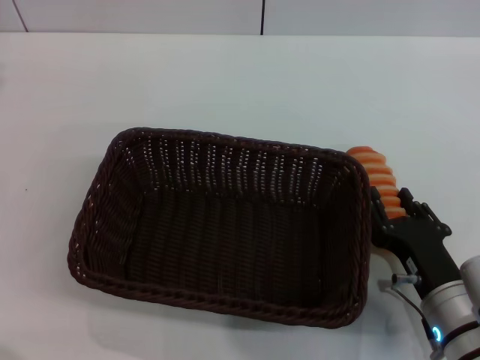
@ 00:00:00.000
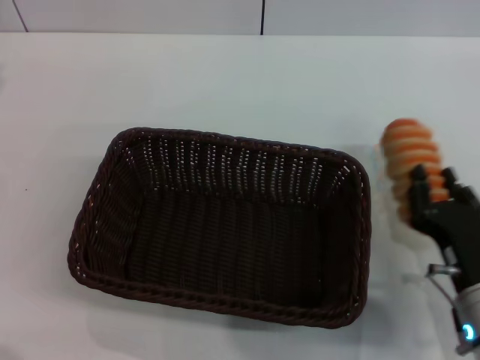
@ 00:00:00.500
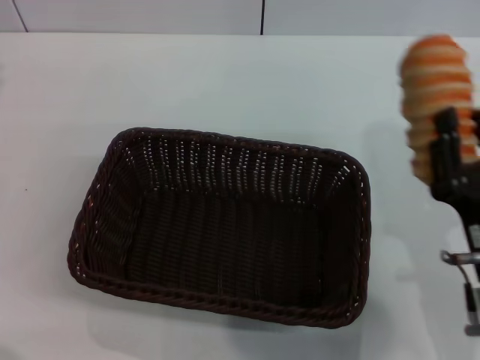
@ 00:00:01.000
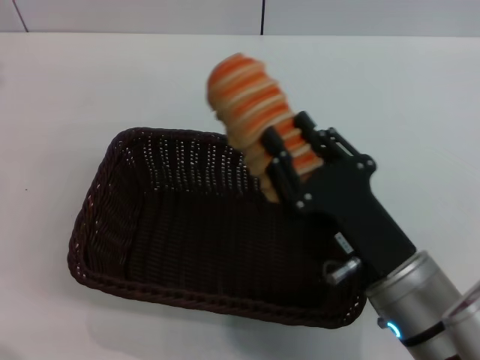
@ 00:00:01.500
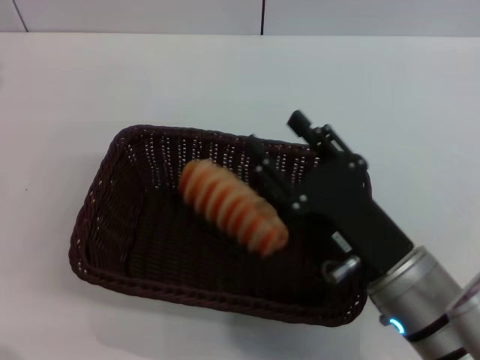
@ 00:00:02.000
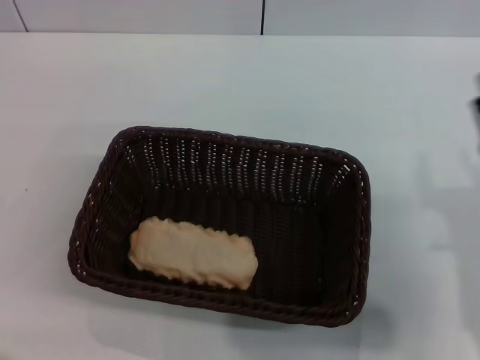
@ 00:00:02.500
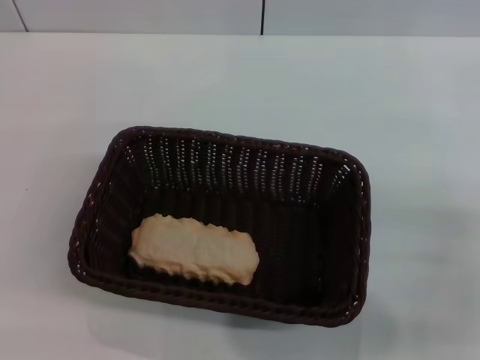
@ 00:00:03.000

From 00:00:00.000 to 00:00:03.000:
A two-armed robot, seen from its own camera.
Step, from 00:00:00.500 to 00:00:02.000: Place the long bread in the basket with right gripper.
From 00:00:00.000 to 00:00:01.500: The right gripper goes about 10 cm upward and to the left, and closes up.
From 00:00:01.500 to 00:00:03.000: The left gripper is displaced downward by approximately 10 cm. Meanwhile the right gripper is displaced to the right by roughly 15 cm, and opens.

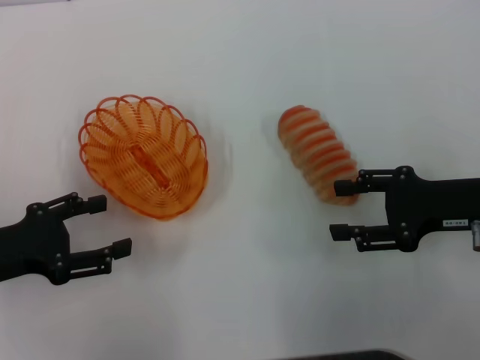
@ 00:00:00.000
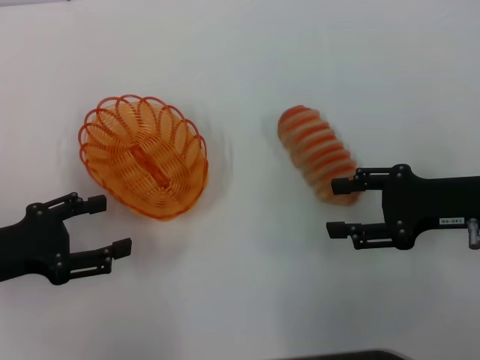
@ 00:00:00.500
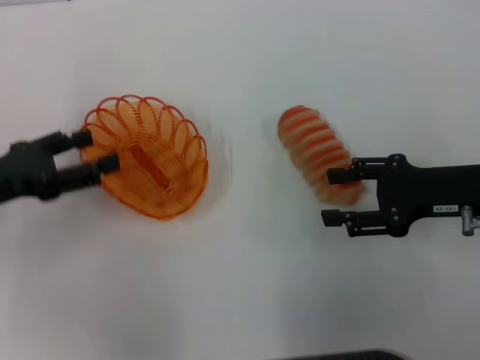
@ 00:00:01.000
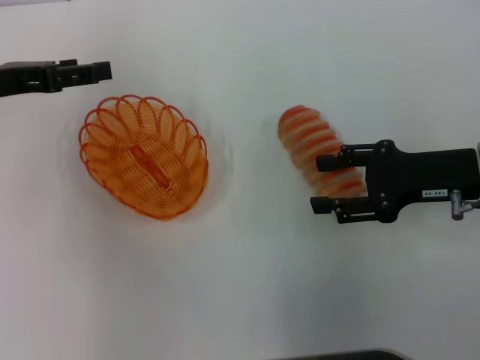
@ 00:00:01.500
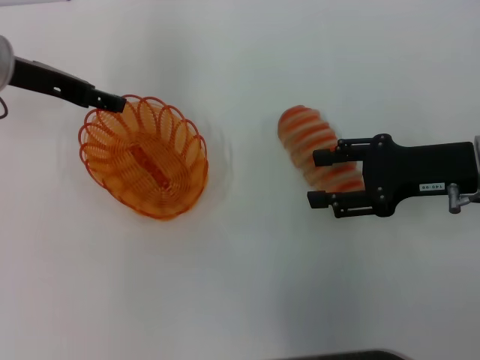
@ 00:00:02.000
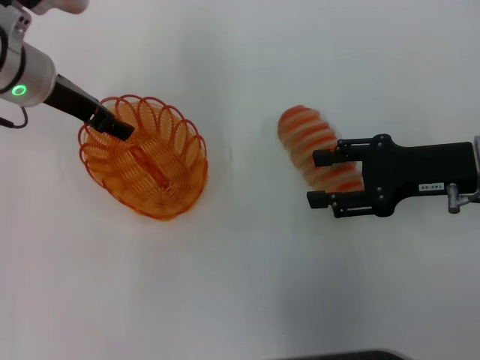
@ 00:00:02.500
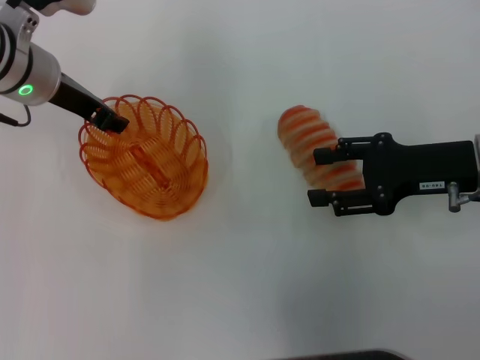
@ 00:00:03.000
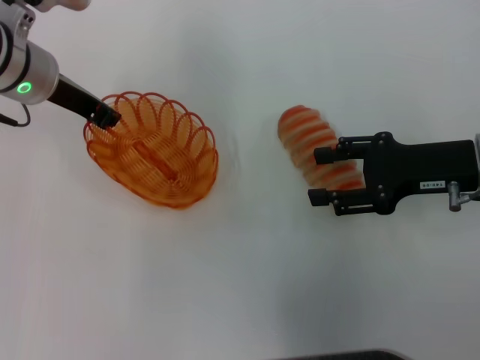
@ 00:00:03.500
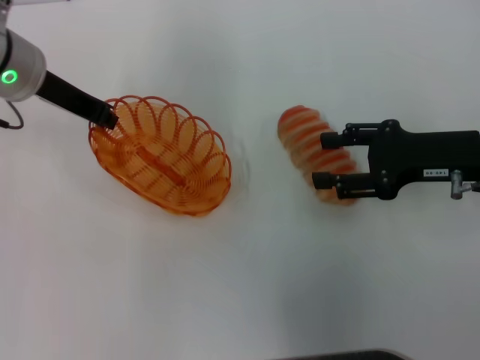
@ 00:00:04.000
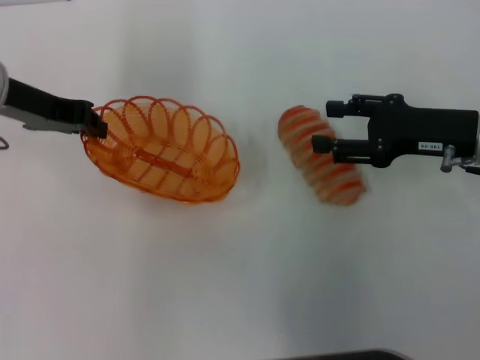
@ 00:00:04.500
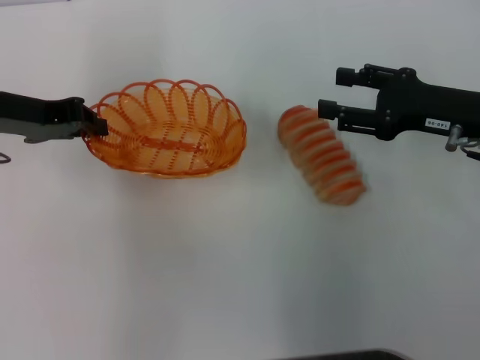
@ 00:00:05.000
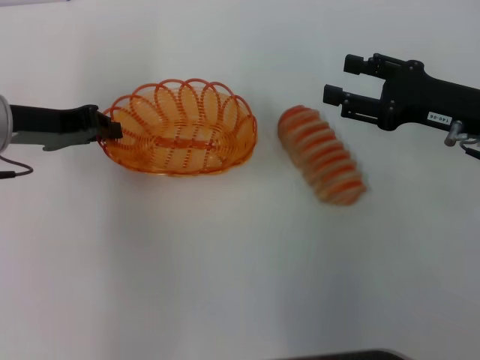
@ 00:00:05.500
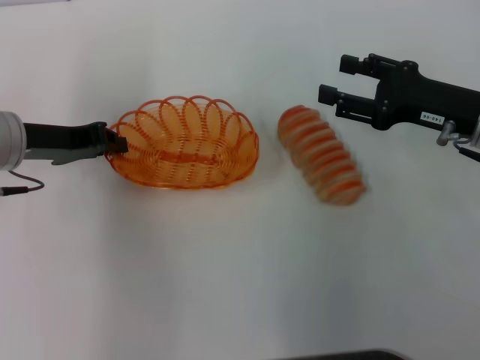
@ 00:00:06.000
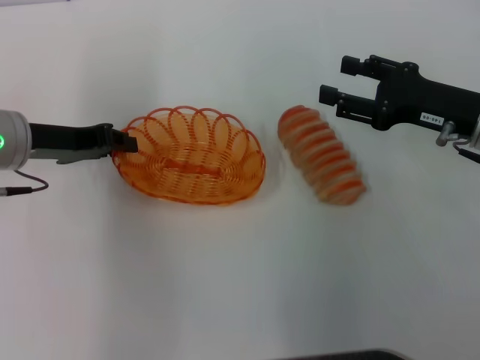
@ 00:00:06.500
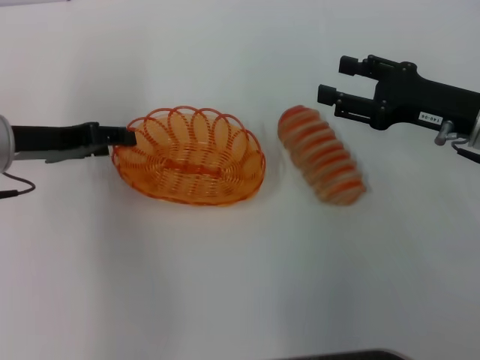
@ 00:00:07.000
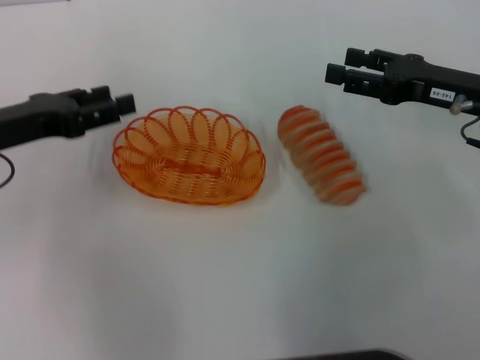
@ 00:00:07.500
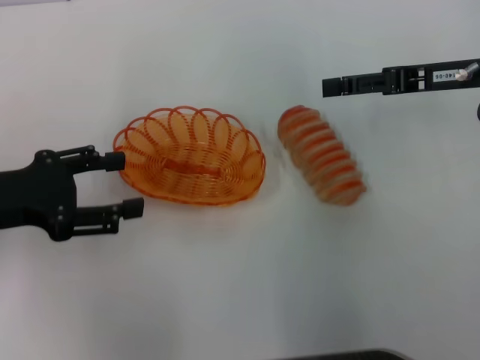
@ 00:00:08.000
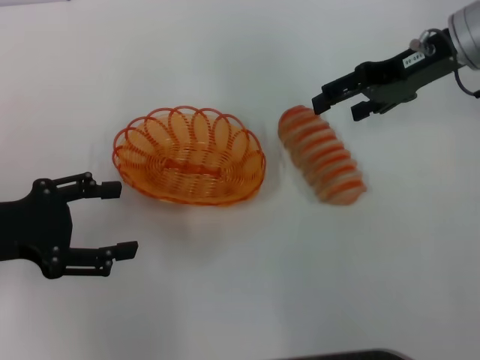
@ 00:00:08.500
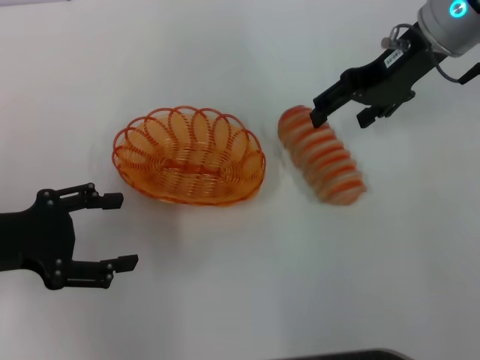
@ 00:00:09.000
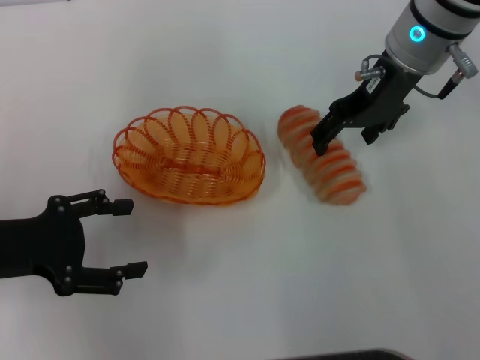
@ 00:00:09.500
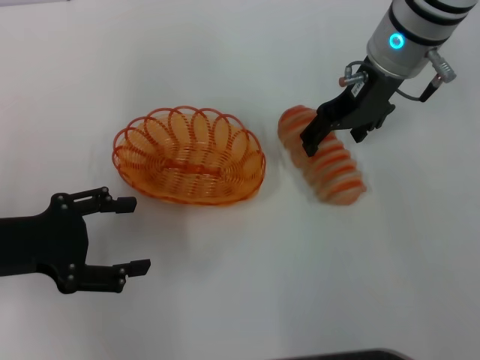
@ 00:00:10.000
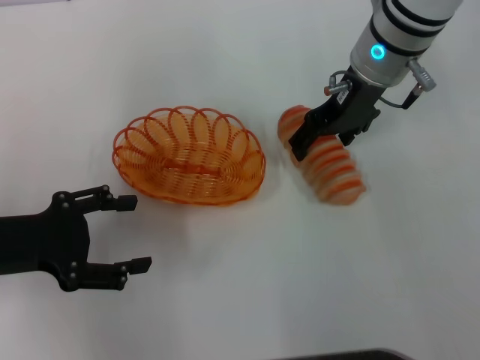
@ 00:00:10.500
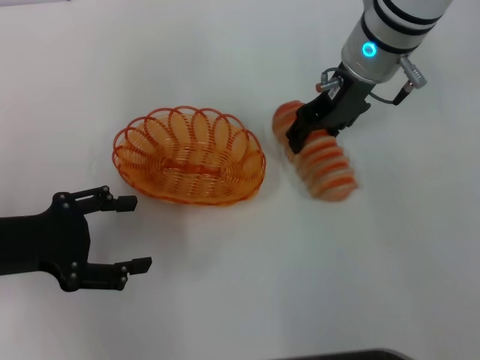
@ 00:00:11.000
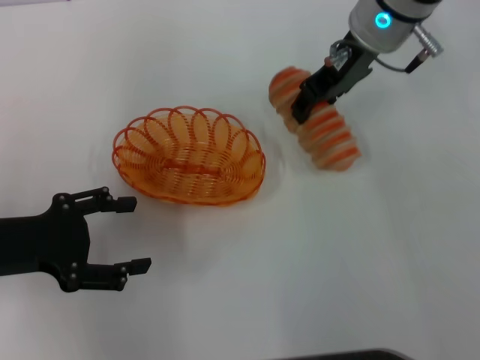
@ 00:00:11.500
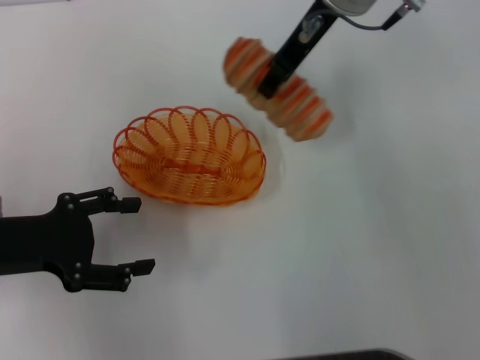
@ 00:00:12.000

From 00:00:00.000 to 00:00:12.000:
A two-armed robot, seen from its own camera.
Step, from 00:00:00.000 to 00:00:05.000: Pick up the basket with the left gripper.
Step, from 00:00:05.500 to 00:00:07.000: Place the basket in the center of view with the left gripper.
Step, from 00:00:08.000 to 00:00:11.500: Pick up the long bread with the right gripper.
From 00:00:00.000 to 00:00:02.000: The left gripper is displaced forward and upward by some 20 cm.
From 00:00:02.000 to 00:00:04.000: The left gripper closes up.
From 00:00:04.000 to 00:00:06.000: The left gripper is displaced downward and backward by some 10 cm.
From 00:00:06.000 to 00:00:08.000: The left gripper heads backward, covering approximately 10 cm, and opens its fingers; the right gripper goes some 5 cm upward.
From 00:00:08.000 to 00:00:10.000: The right gripper goes approximately 15 cm to the left and forward.
From 00:00:10.000 to 00:00:12.000: The right gripper moves upward and to the left, roughly 10 cm, and closes.

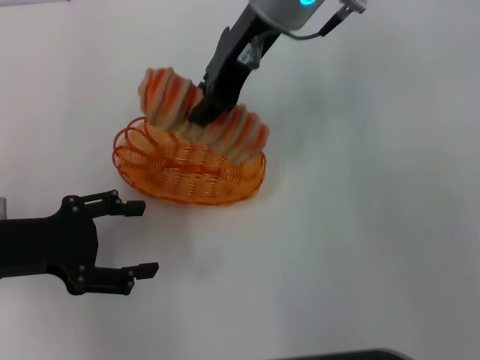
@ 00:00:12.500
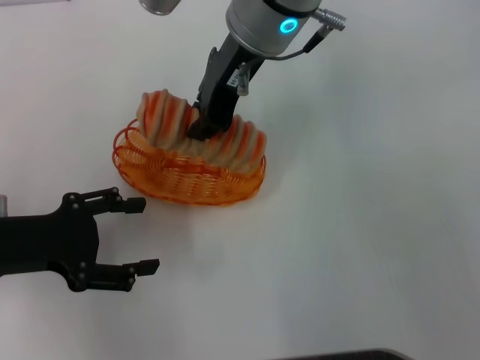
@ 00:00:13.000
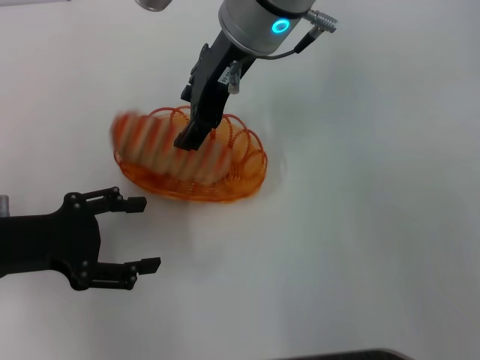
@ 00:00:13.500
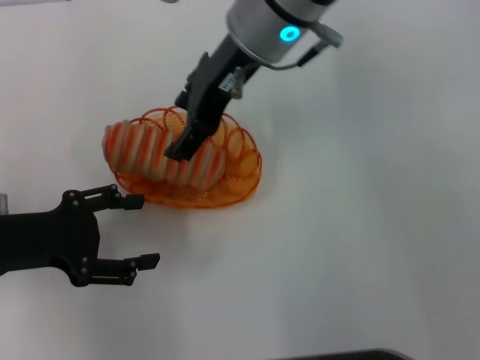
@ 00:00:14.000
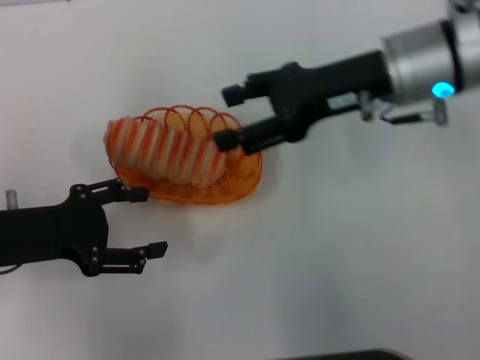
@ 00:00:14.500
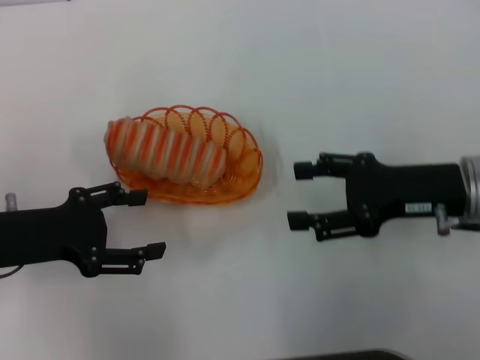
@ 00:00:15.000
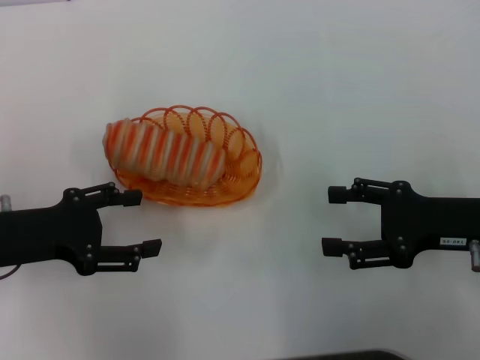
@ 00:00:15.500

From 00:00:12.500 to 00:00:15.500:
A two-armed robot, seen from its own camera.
Step, from 00:00:12.500 to 00:00:14.500: Place the long bread into the basket with the right gripper.
From 00:00:12.500 to 00:00:14.000: The right gripper opens.
From 00:00:14.000 to 00:00:15.500: The right gripper heads to the right, backward and downward, covering about 30 cm.
